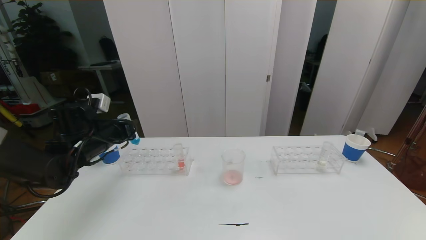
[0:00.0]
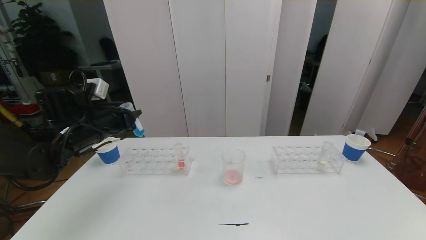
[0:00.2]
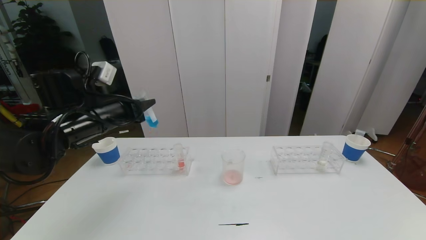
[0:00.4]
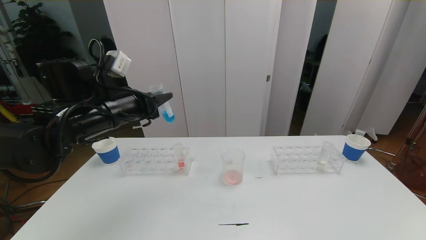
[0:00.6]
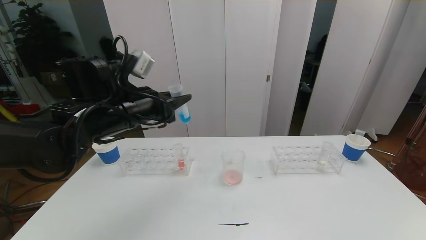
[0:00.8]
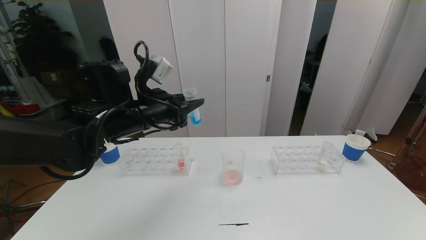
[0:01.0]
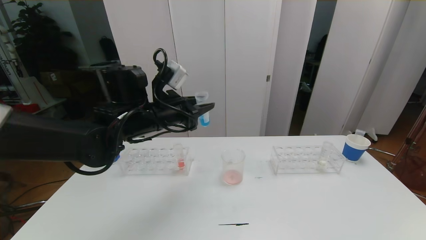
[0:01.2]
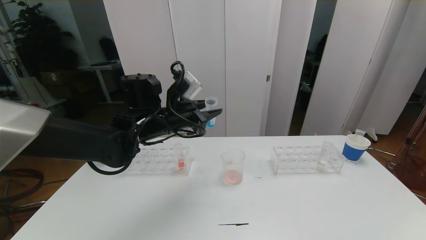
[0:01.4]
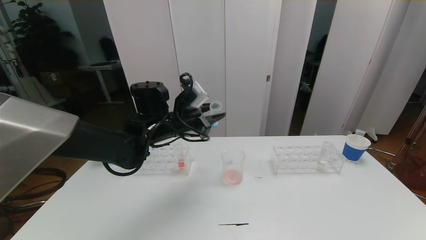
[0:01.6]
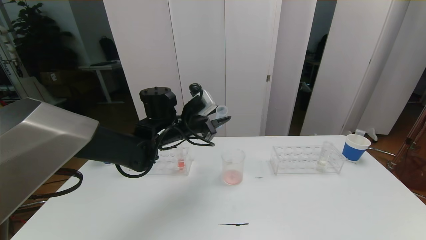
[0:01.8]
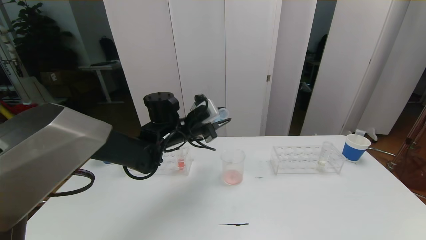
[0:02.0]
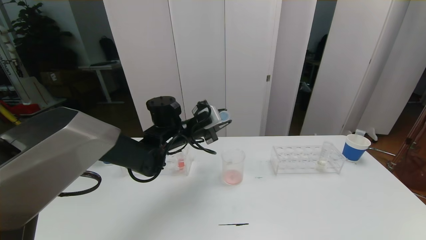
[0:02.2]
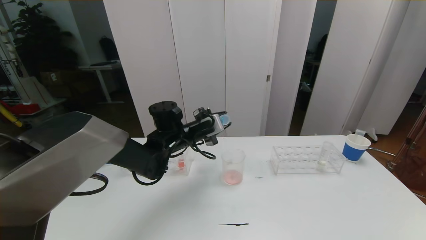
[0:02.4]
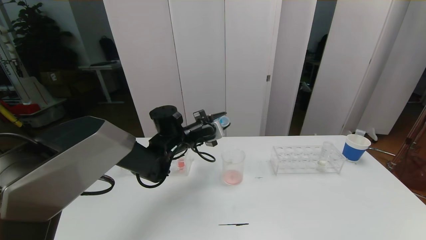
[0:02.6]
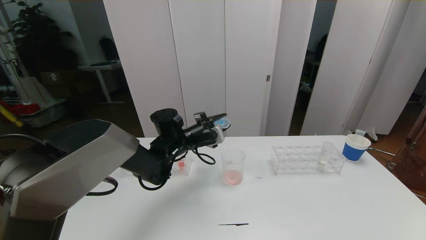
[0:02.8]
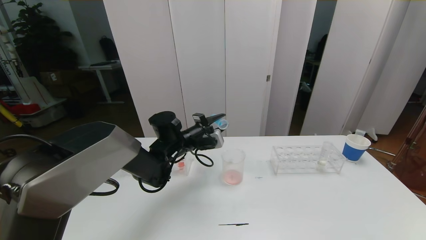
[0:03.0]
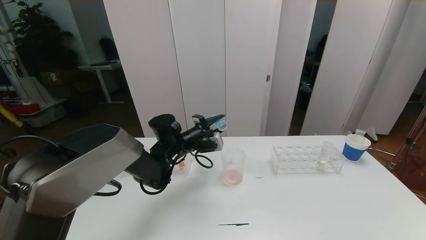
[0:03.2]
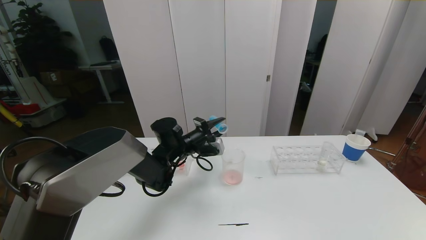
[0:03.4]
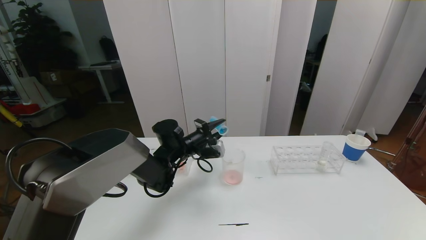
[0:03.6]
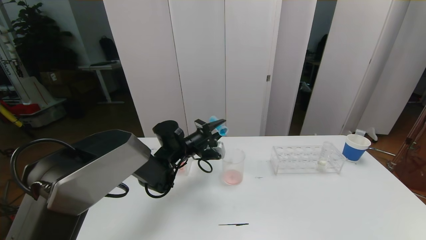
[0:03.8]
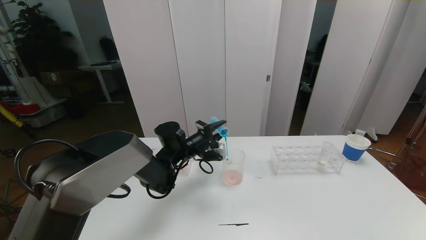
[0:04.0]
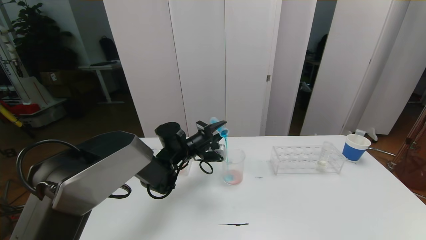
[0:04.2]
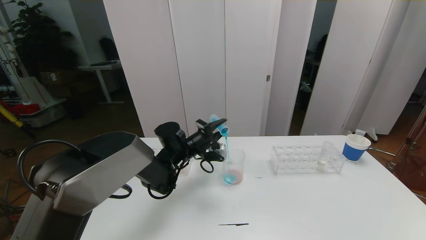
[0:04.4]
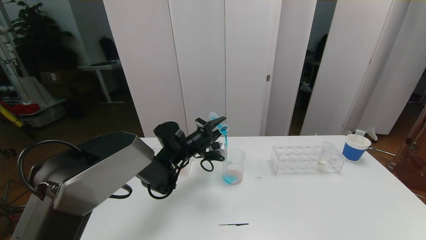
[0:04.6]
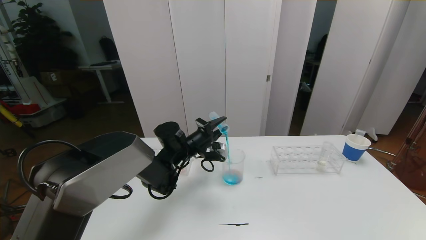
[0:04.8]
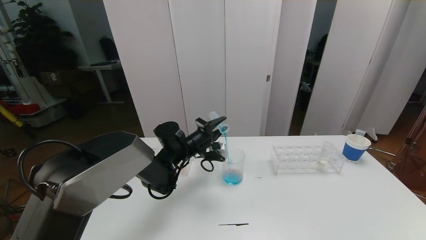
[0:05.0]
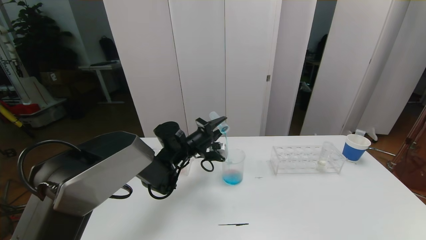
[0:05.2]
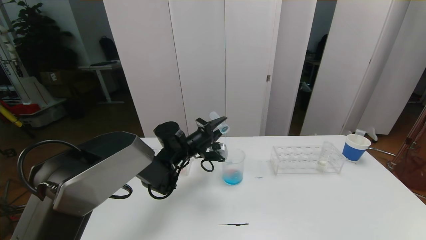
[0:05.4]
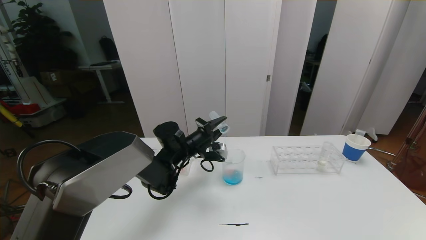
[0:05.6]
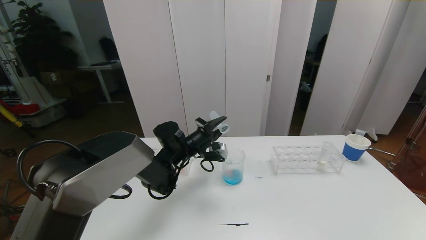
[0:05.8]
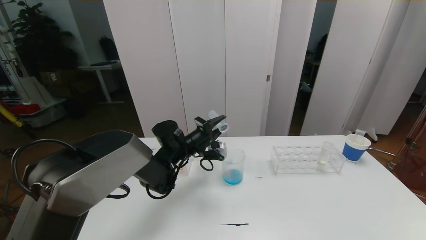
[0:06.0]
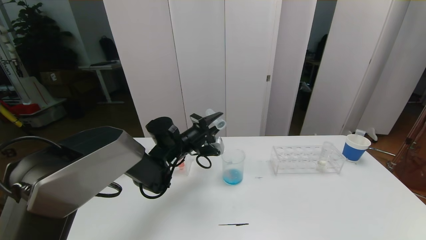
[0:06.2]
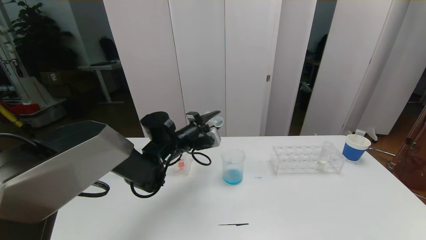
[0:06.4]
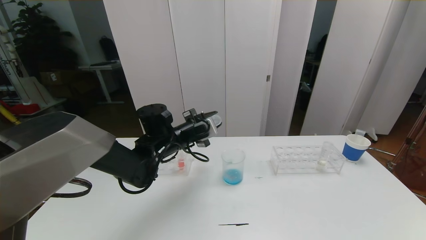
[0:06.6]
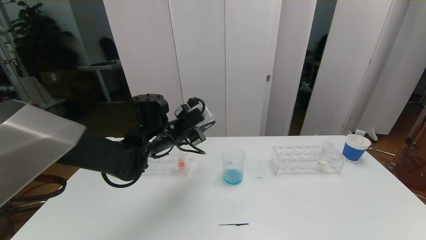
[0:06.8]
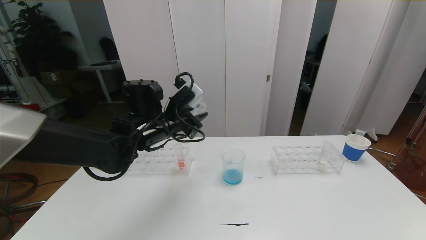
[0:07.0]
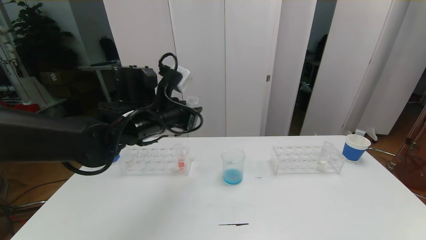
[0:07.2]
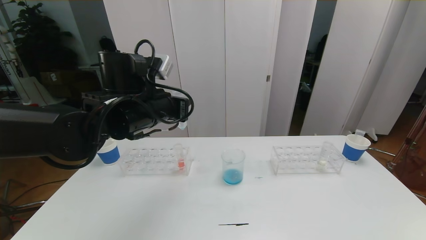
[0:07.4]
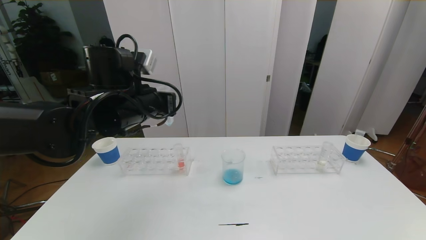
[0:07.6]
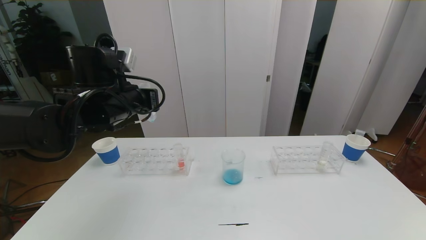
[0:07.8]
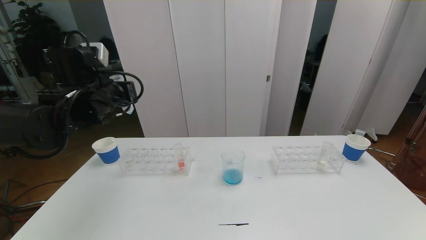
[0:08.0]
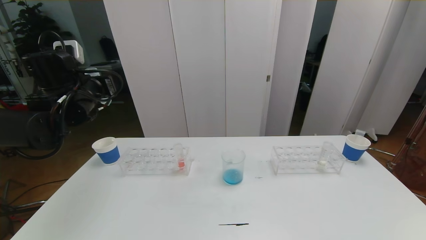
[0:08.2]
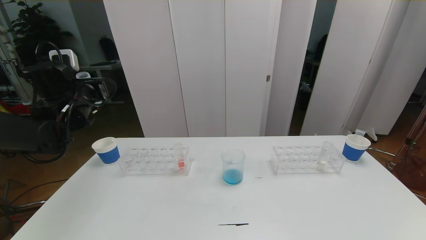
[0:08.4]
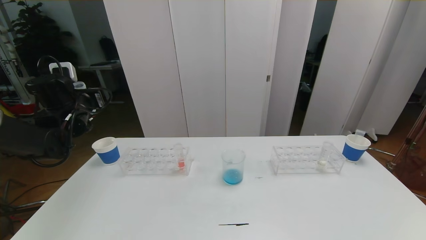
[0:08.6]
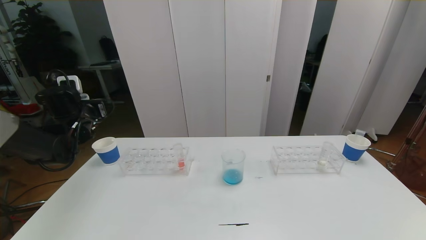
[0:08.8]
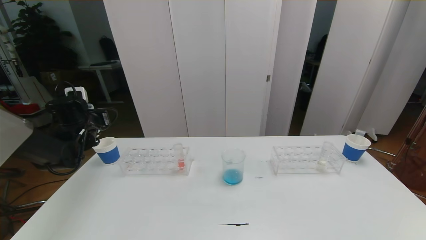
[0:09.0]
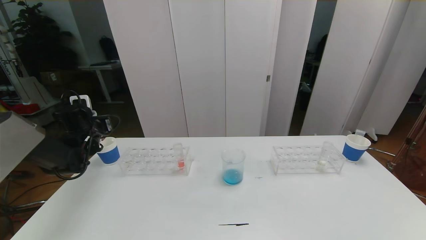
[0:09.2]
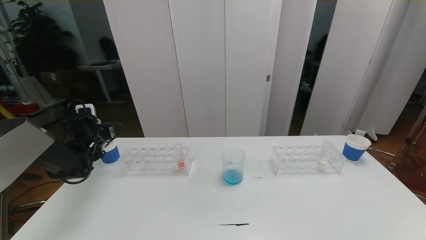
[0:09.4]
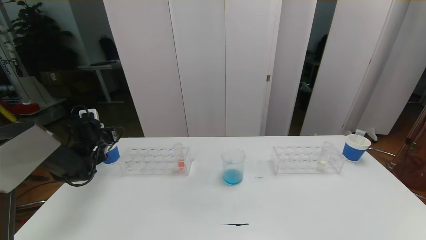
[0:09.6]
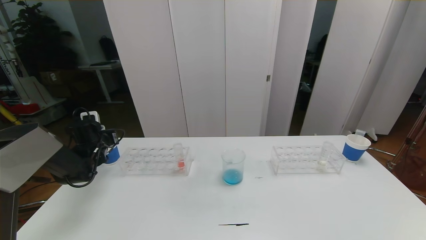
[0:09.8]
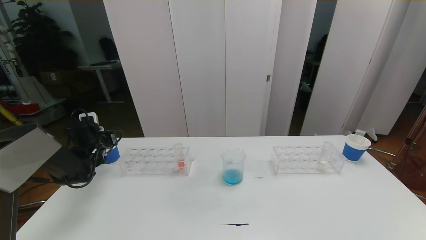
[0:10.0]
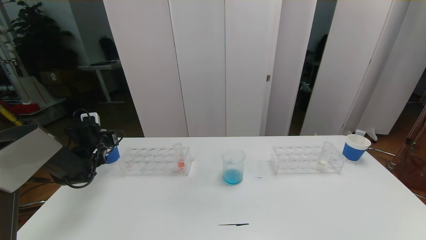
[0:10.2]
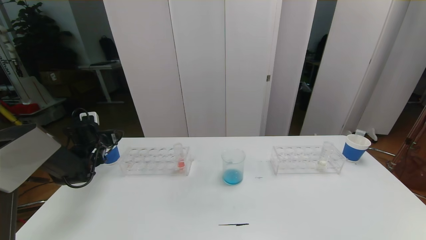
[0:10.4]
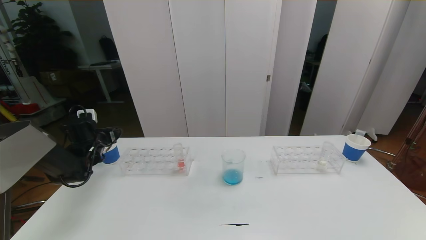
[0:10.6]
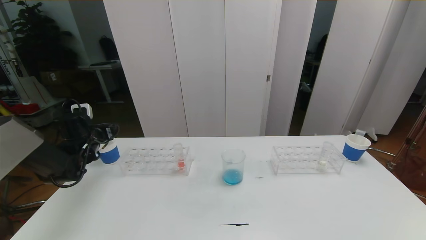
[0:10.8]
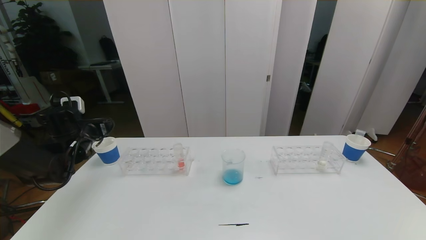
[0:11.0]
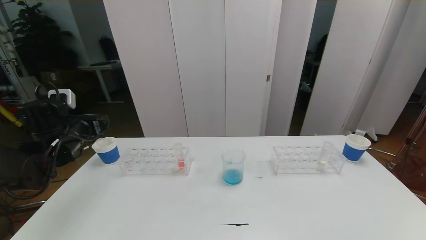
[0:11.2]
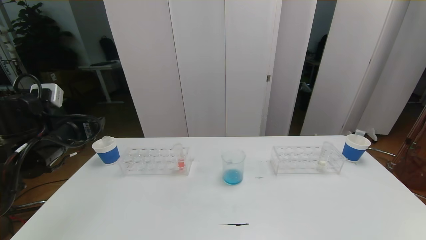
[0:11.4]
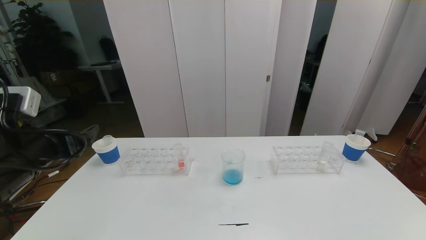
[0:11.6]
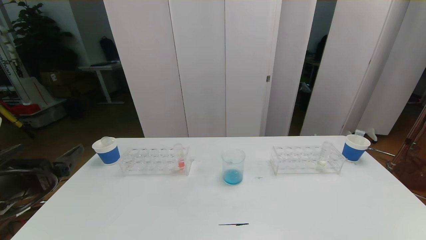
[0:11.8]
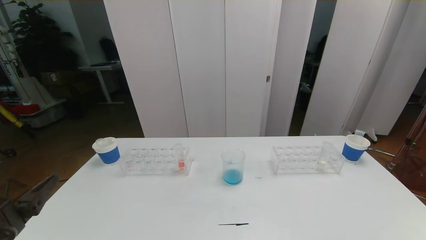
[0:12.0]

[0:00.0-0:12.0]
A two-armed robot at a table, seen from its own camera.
Task of the whole recording: pick up the test tube with red pigment the test tube with blue pigment and the test tube with white pigment by grippers and pour them into the beaker.
0:00.0 to 0:01.6: The left gripper travels to the right by approximately 15 cm.
0:01.6 to 0:03.0: The left gripper is displaced downward by about 5 cm.
0:03.0 to 0:04.4: The grippers stay close to where they were, moving slightly.
0:04.4 to 0:06.0: Both grippers stay put.
0:06.0 to 0:07.6: The left gripper travels upward and backward by some 20 cm.
0:07.6 to 0:09.0: The left gripper goes about 25 cm to the left, downward and forward.
0:09.0 to 0:10.4: The left gripper shifts roughly 10 cm downward, and opens.
0:10.4 to 0:12.0: The left gripper shifts roughly 35 cm backward.

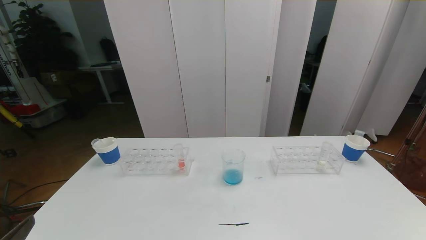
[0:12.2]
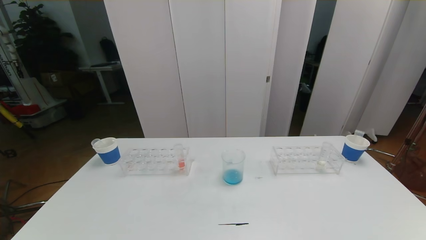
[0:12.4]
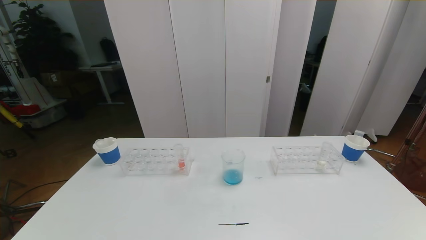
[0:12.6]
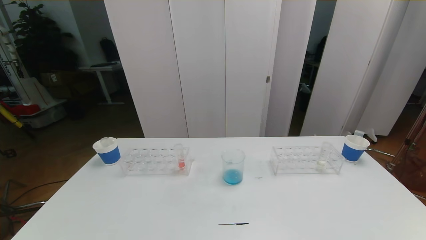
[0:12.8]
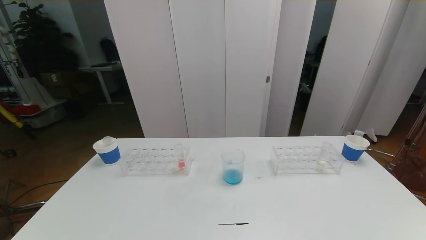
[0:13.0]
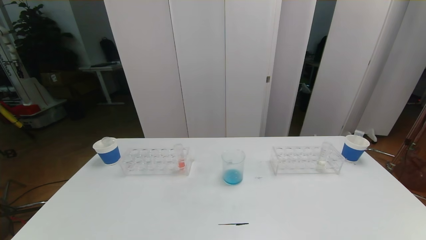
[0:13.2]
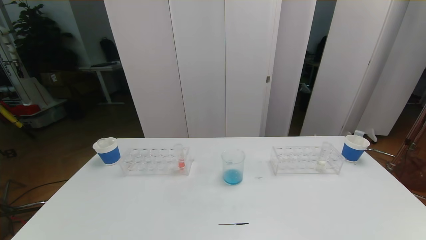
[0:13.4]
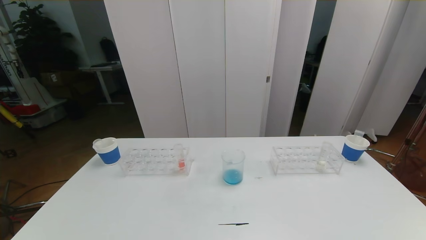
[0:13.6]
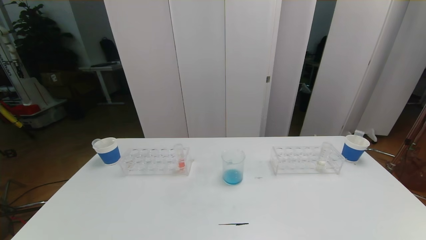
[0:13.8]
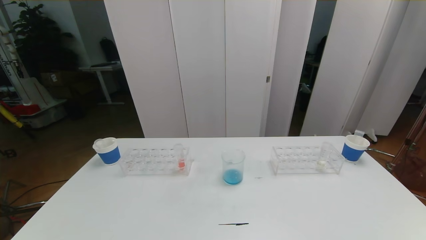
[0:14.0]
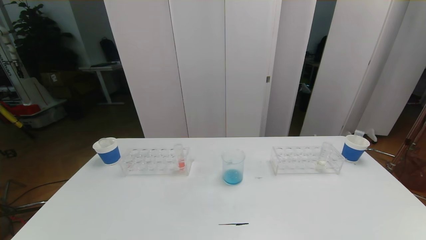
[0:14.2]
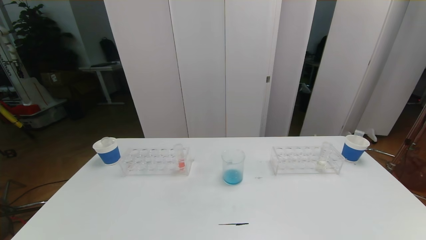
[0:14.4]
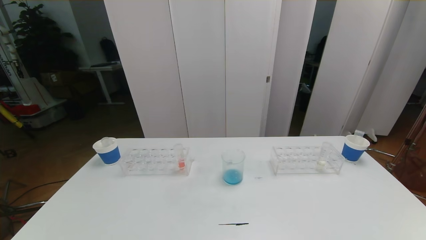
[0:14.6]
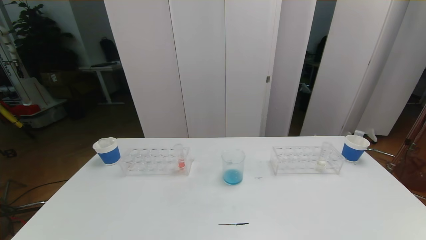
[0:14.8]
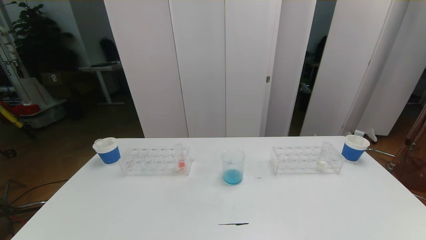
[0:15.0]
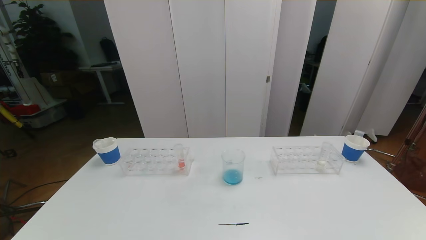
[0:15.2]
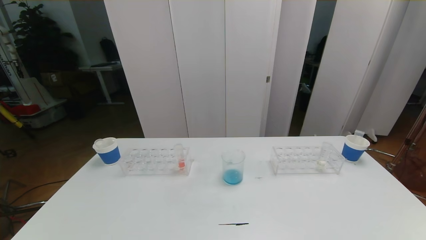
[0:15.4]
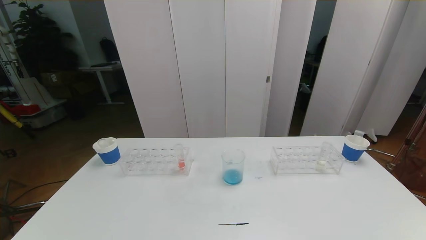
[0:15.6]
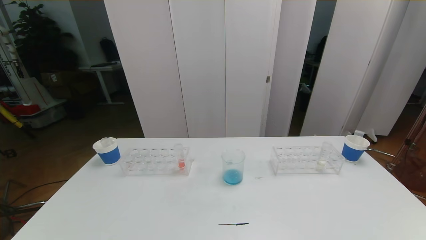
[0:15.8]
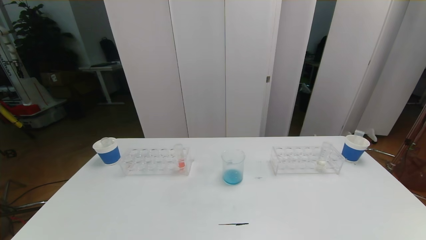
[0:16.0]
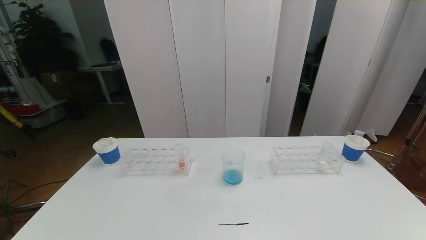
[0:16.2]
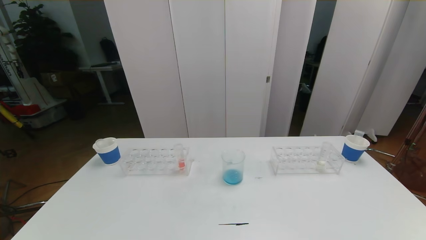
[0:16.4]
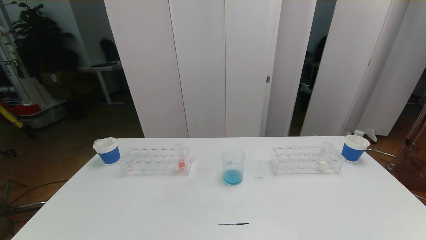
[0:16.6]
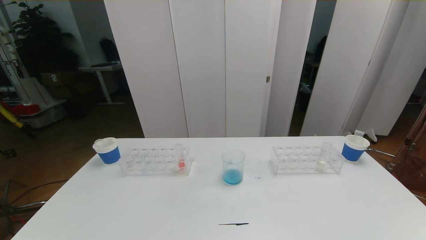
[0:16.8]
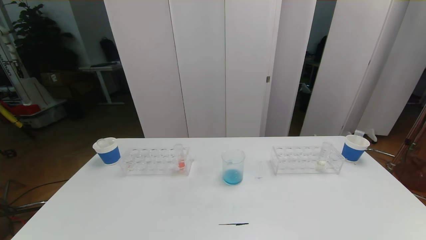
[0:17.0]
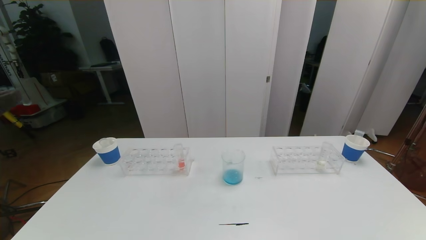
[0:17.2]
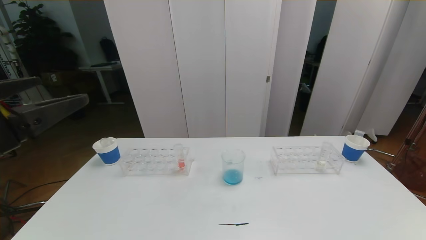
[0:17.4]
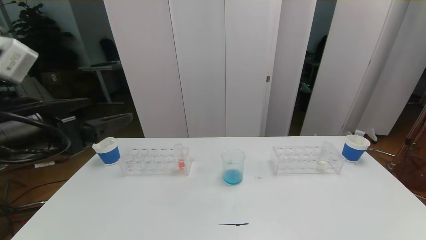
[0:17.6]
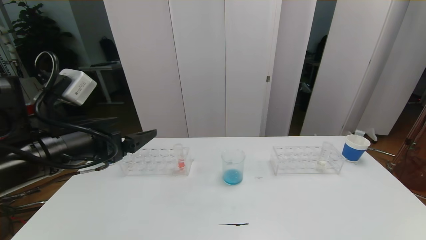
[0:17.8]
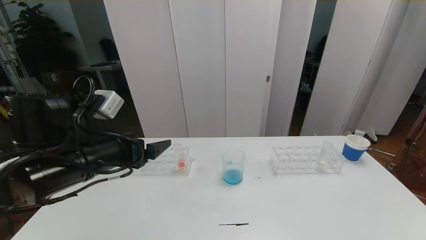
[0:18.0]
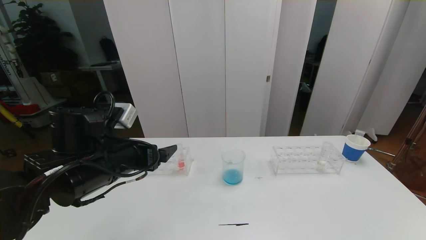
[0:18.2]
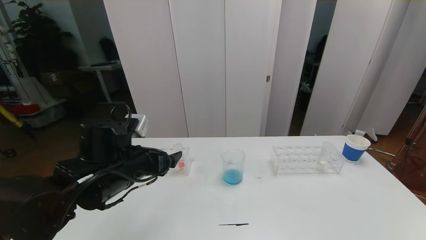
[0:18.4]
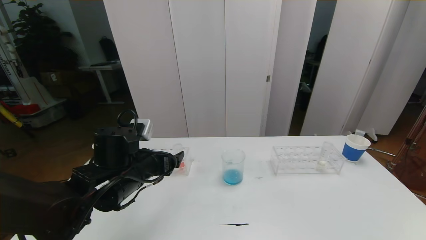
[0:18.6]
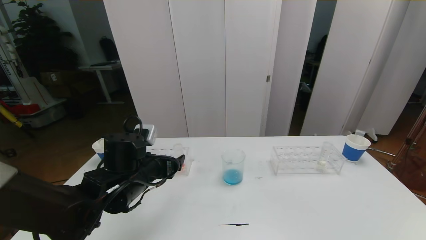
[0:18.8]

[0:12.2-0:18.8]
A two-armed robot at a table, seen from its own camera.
Task of the whole recording: pick up the test tube with red pigment the test tube with blue pigment and the test tube with white pigment by grippers and pour them into the beaker.
0:13.8 to 0:15.4: Both grippers stay put.
0:17.2 to 0:18.8: The left gripper heads downward, forward and to the right, covering about 30 cm.
